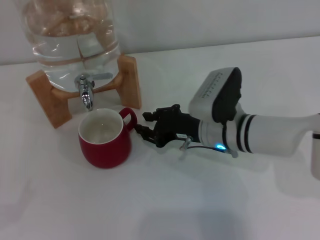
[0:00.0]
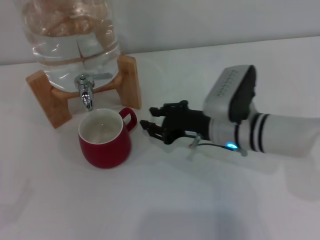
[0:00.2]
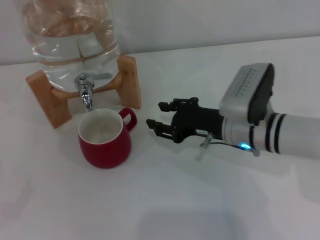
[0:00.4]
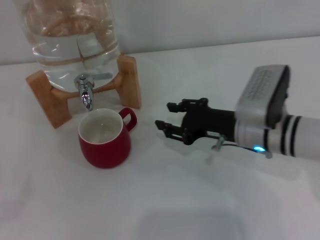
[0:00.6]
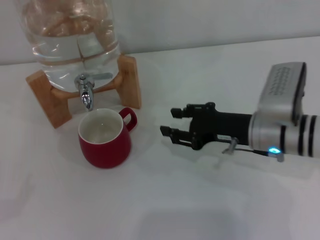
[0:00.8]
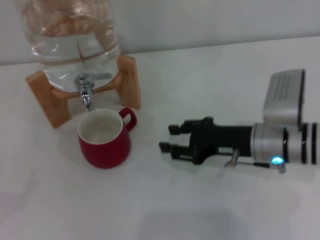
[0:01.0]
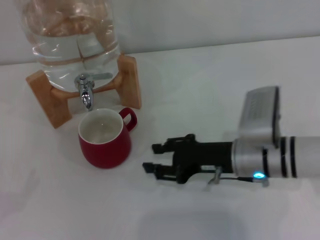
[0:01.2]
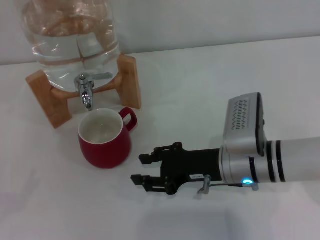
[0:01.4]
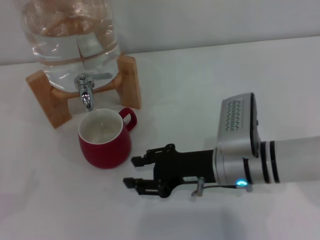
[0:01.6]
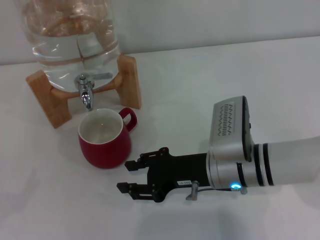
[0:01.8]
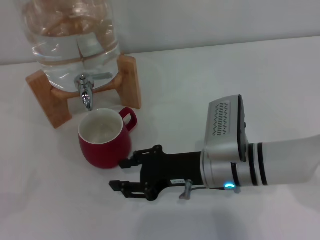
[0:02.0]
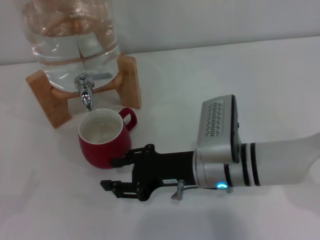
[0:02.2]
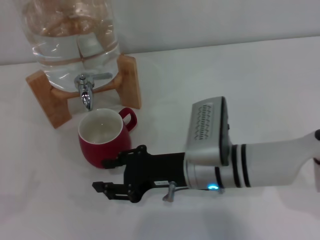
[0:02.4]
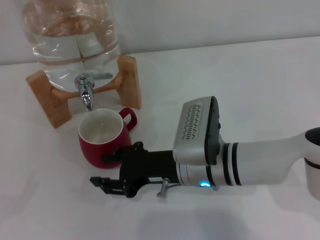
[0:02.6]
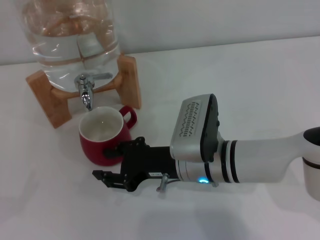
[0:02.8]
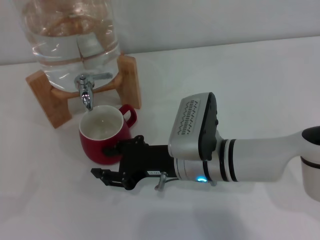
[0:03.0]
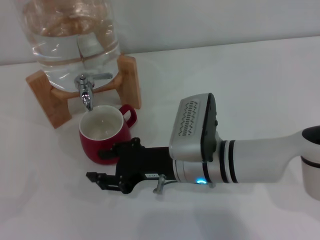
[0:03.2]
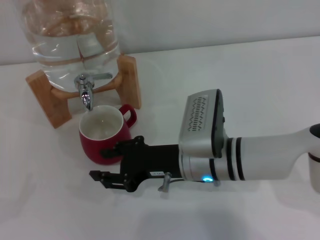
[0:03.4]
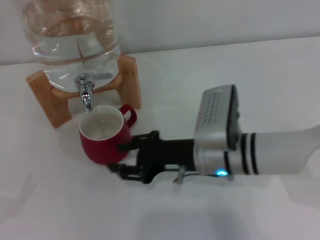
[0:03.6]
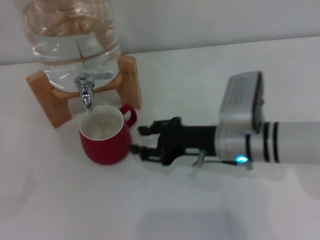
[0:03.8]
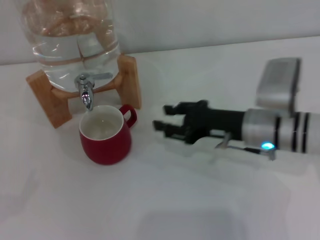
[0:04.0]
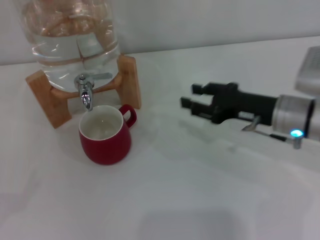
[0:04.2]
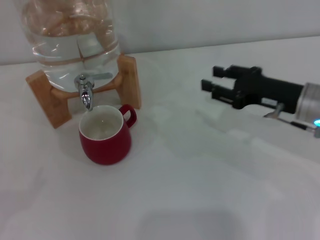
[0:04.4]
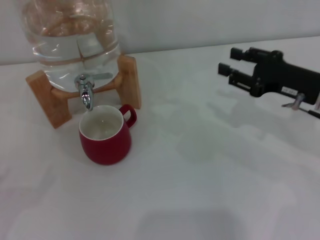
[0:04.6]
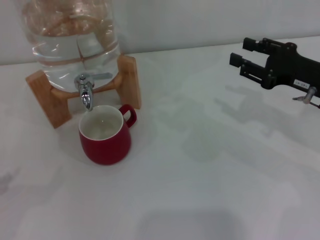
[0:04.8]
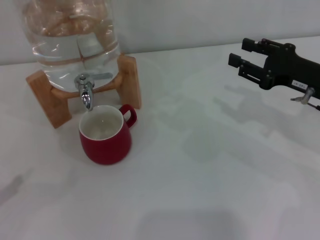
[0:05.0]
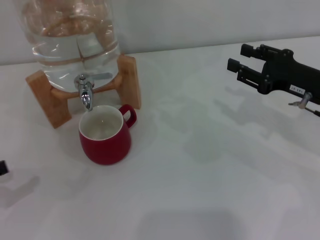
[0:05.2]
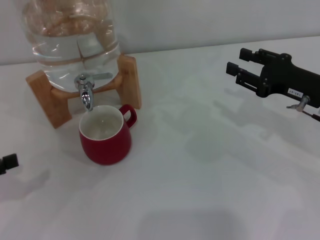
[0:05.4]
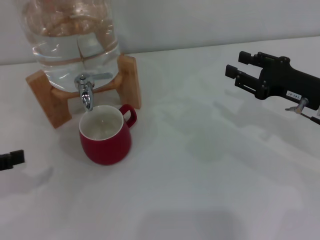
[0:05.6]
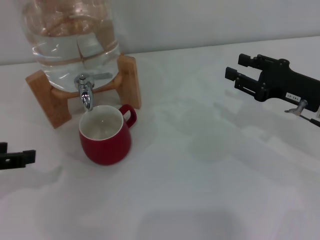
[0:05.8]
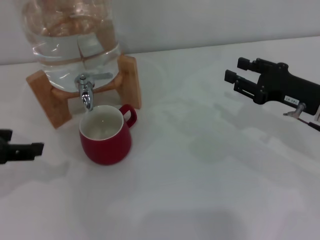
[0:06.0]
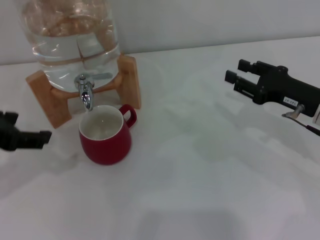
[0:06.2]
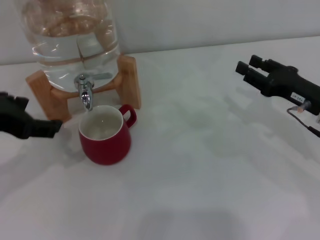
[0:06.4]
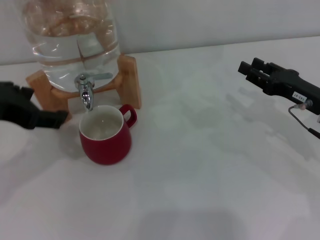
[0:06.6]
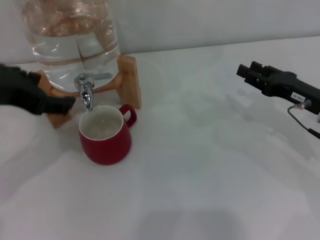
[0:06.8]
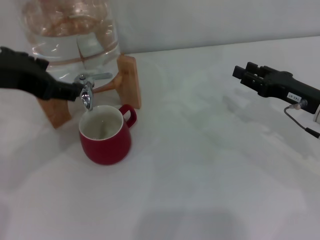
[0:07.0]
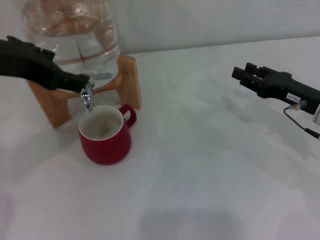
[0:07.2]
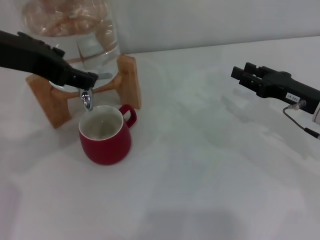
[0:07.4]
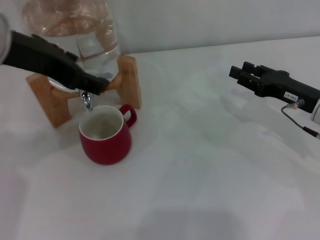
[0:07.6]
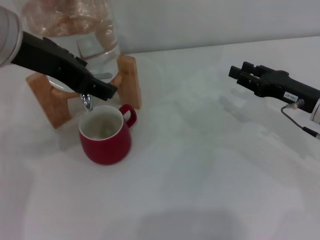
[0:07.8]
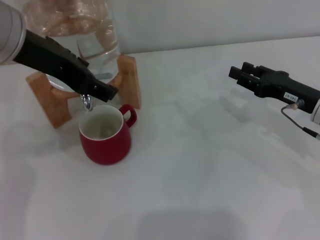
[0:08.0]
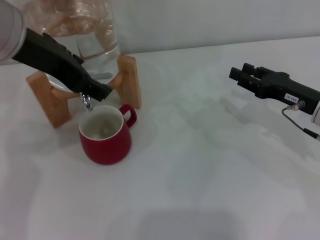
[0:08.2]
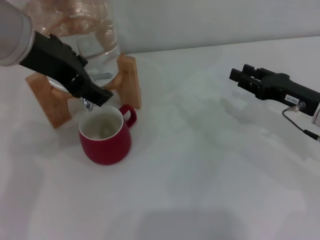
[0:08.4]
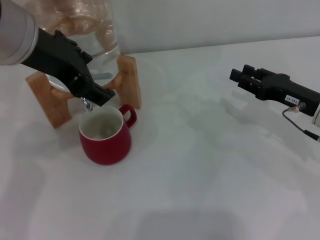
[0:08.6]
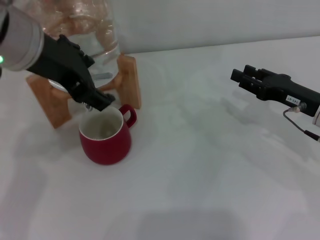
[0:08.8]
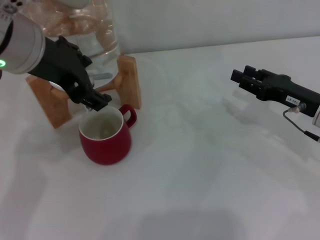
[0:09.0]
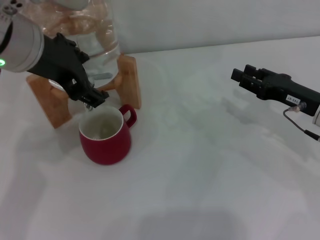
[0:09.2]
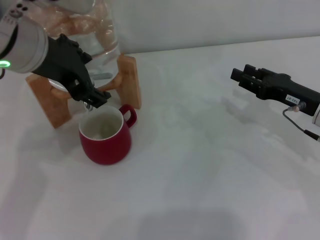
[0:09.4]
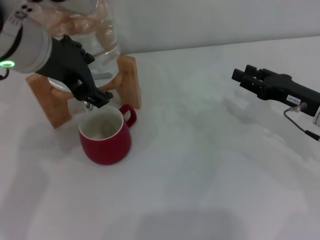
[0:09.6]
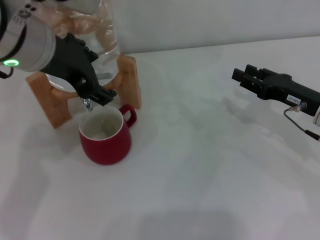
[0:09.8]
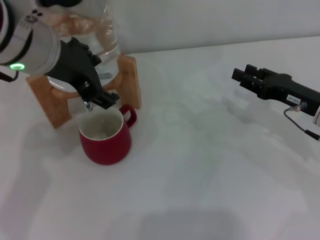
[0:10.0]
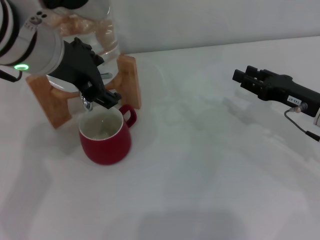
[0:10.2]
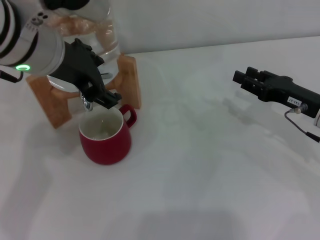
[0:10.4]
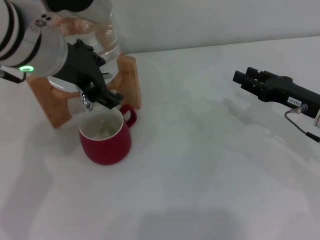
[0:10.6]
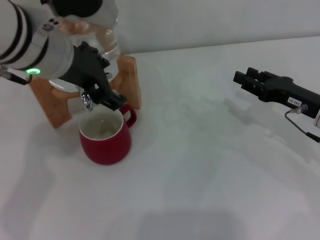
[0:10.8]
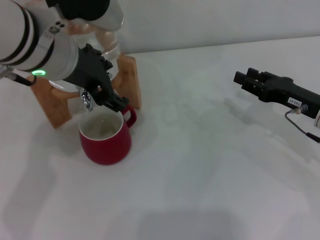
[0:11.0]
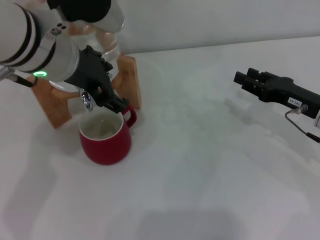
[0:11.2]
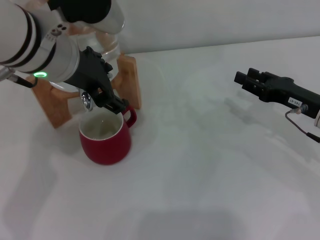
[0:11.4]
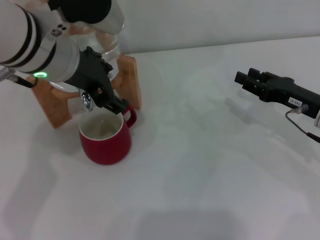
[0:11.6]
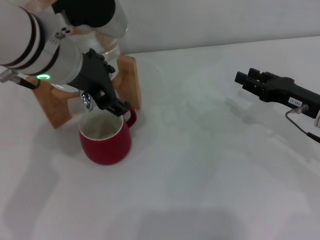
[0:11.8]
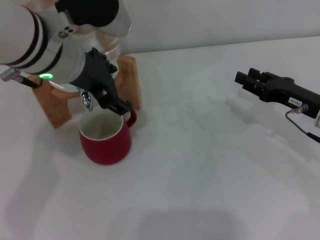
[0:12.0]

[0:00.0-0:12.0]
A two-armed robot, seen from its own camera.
Task of the whole recording: the right gripper pick up the red cup and place it horizontally under the faucet, the left gripper turn on the faucet to fill the cup, and then turn off the faucet.
0:00.0 to 0:01.6: The right gripper travels backward by roughly 5 cm.
0:01.6 to 0:03.0: The right gripper heads to the left, covering approximately 5 cm.
0:03.0 to 0:04.4: The right gripper moves to the right, approximately 15 cm.
0:04.4 to 0:06.0: The left gripper goes approximately 20 cm upward, to the right and forward.
0:06.0 to 0:07.6: The left gripper moves to the right and upward, approximately 15 cm.
0:09.0 to 0:12.0: The grippers make only small movements.

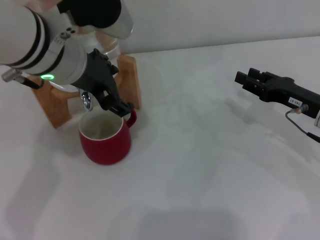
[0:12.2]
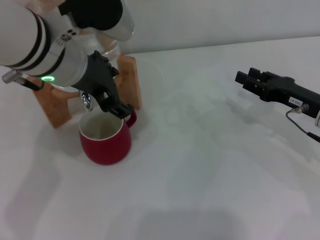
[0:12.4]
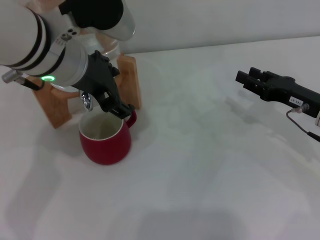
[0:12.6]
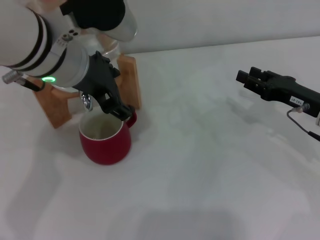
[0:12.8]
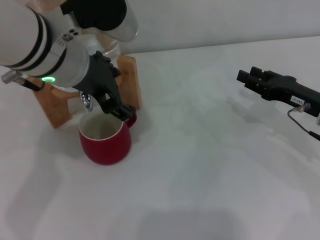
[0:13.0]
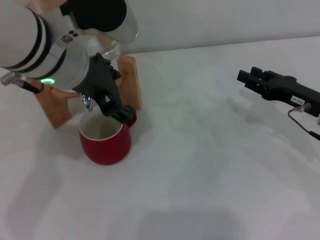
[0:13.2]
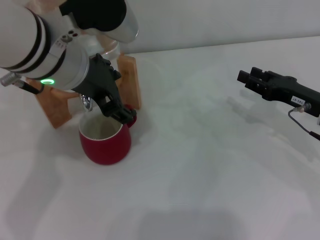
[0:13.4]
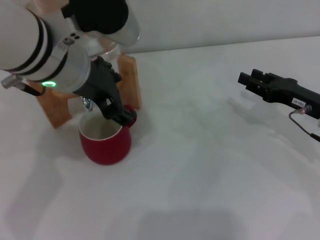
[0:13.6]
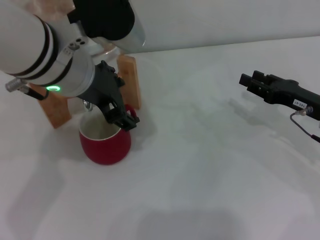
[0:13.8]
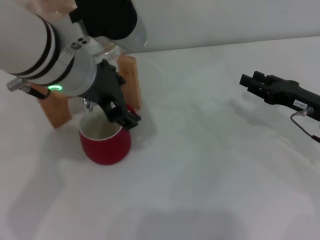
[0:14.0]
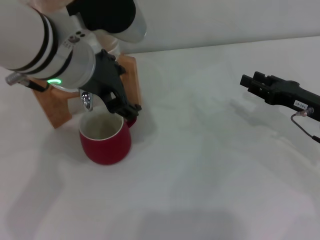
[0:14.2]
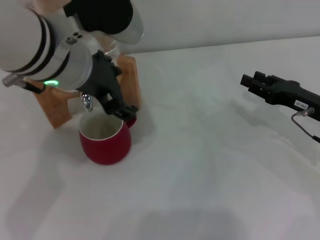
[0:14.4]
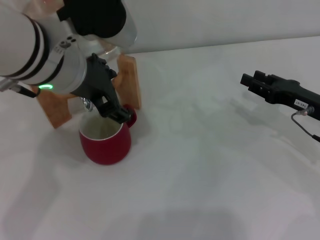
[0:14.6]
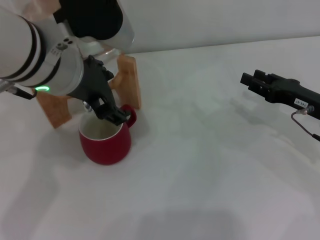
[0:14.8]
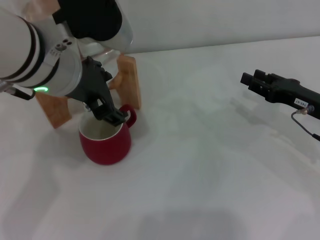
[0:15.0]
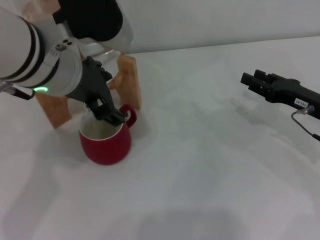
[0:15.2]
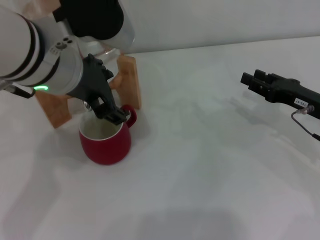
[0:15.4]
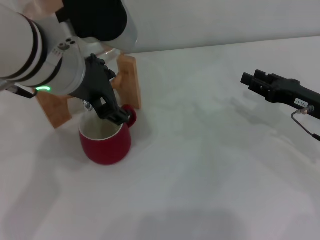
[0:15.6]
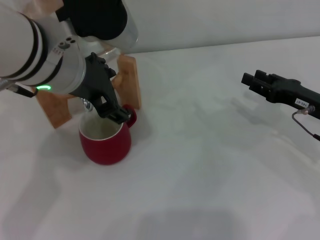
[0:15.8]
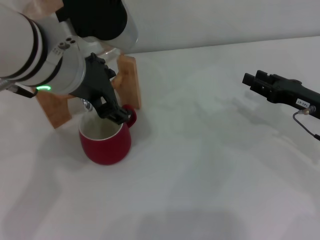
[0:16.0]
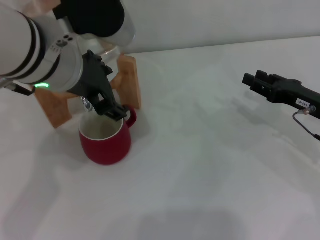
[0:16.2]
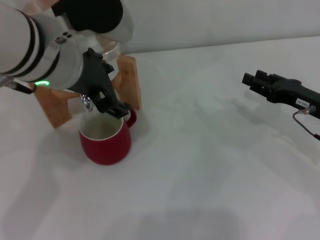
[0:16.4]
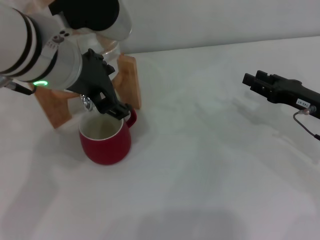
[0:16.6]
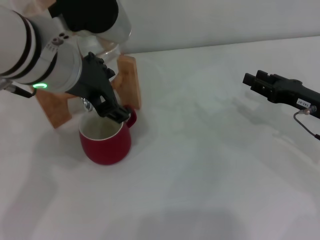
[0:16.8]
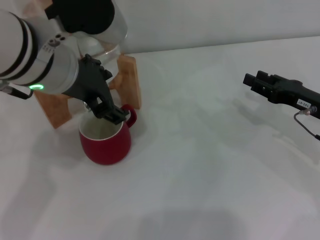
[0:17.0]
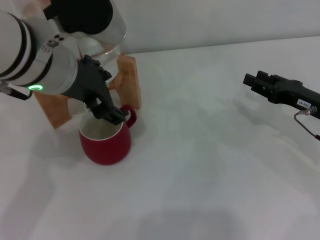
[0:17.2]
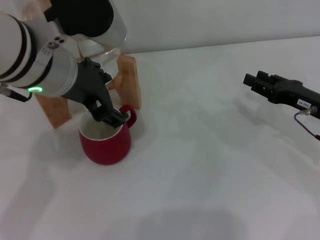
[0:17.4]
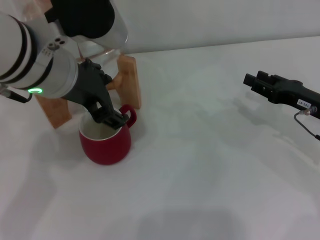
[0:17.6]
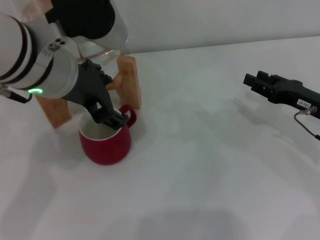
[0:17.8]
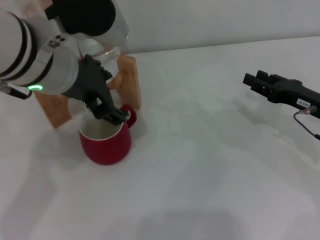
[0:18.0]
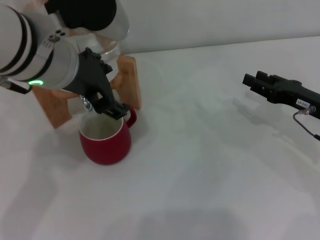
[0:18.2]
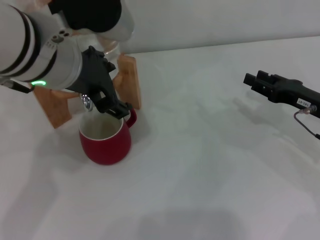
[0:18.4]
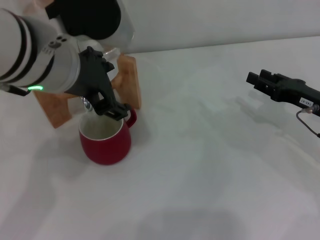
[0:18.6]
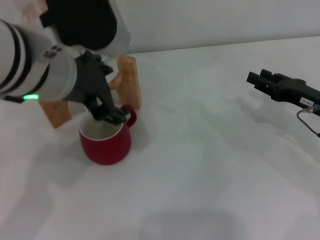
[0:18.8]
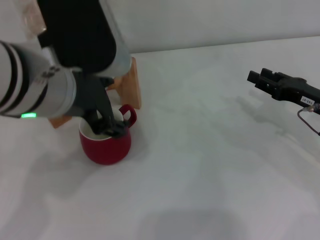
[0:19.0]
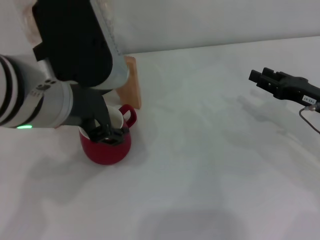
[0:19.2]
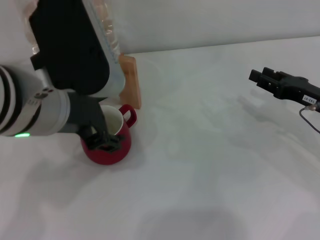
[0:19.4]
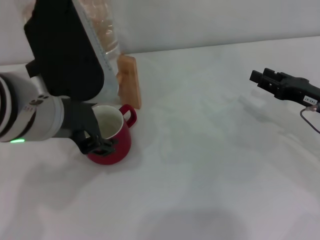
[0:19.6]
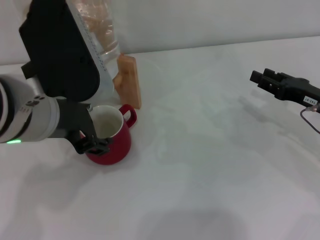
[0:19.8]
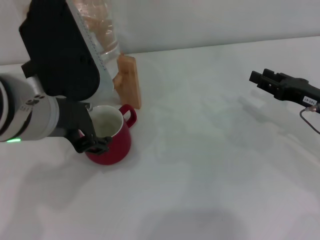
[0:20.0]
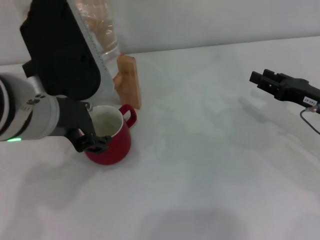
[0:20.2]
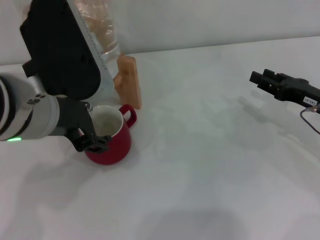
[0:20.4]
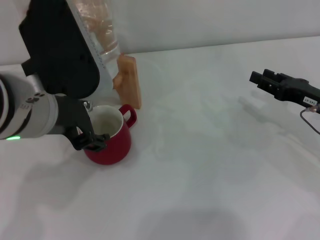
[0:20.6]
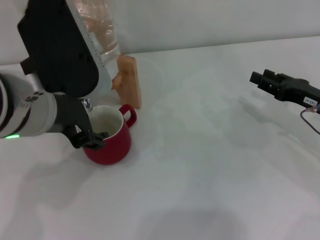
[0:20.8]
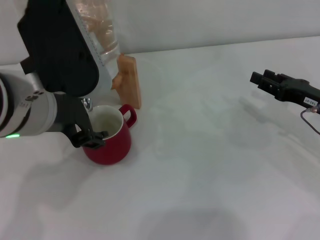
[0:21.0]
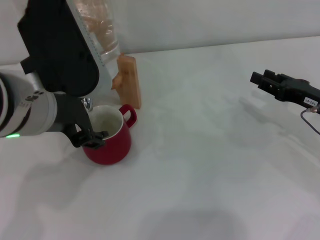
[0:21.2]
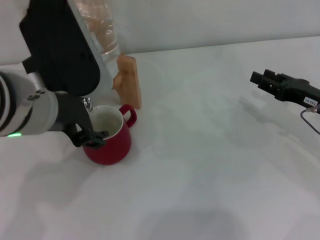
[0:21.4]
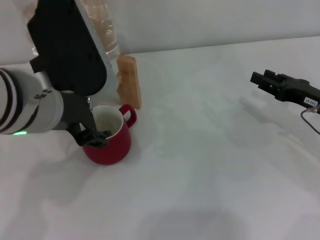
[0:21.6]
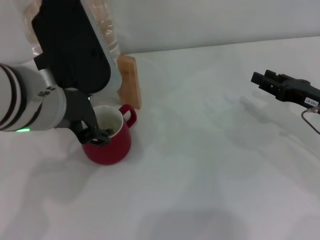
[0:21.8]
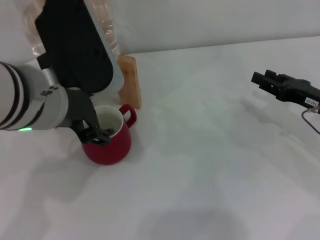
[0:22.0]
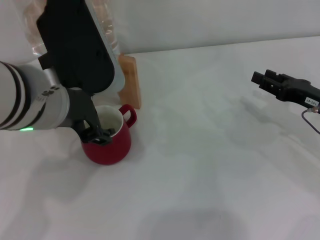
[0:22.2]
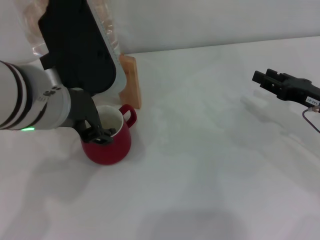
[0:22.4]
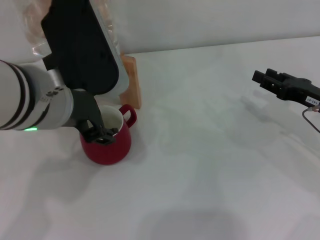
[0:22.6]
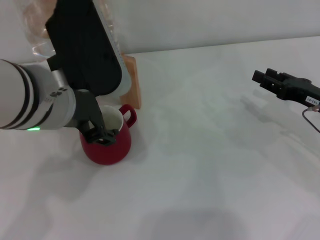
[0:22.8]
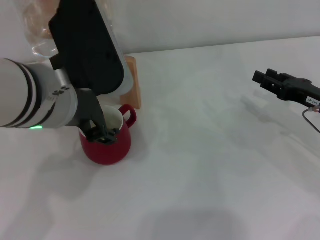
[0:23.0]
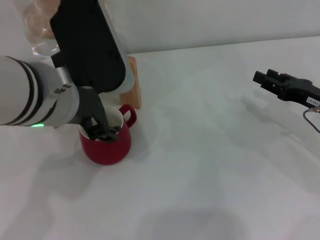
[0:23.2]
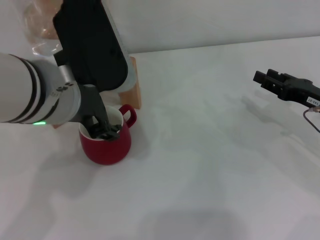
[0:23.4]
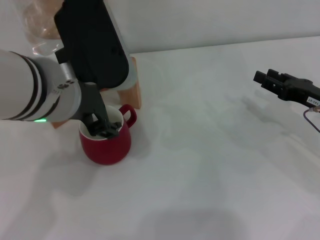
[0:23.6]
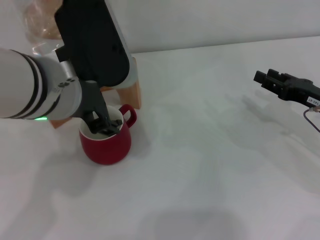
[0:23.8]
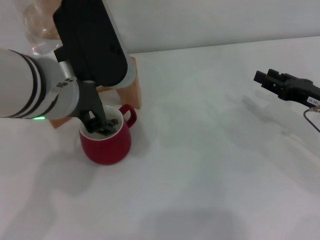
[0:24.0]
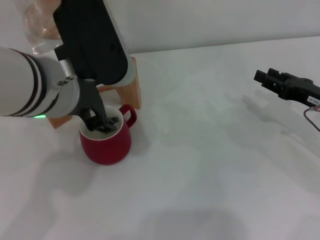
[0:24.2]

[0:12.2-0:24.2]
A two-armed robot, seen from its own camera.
Task of the whole recording: the right gripper pick up the red cup and place it horizontally under the faucet, the left gripper turn on the faucet to fill the cup, and then turn off the faucet.
Step, 0:12.2 to 0:20.2: Open the dispenser valve and fill the cup with water with the left gripper.
0:12.2 to 0:13.8: The grippers stay close to where they were, moving slightly.
0:13.8 to 0:15.2: Both grippers stay put.
0:15.2 to 0:18.2: Both grippers stay about where they are.
0:18.2 to 0:19.8: The left gripper shifts roughly 5 cm backward.
0:19.8 to 0:21.2: The two grippers keep their place.
0:21.2 to 0:24.2: The grippers move only a little.
